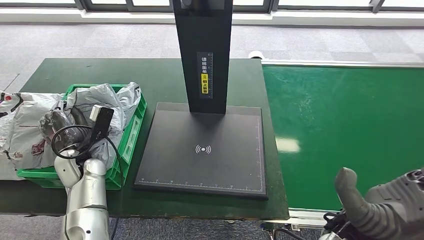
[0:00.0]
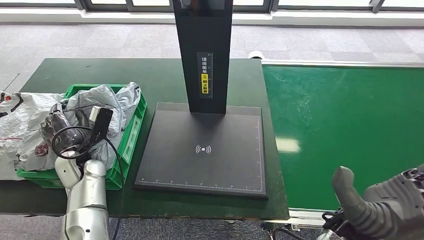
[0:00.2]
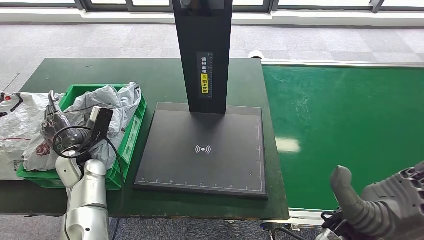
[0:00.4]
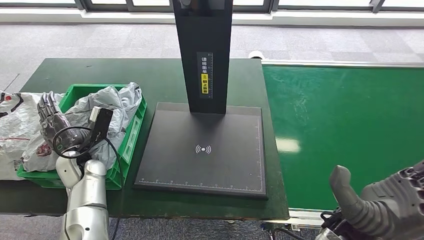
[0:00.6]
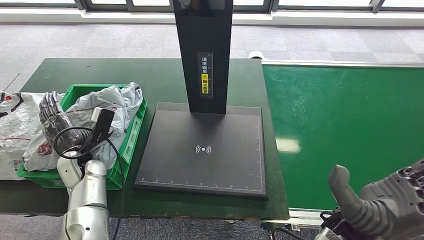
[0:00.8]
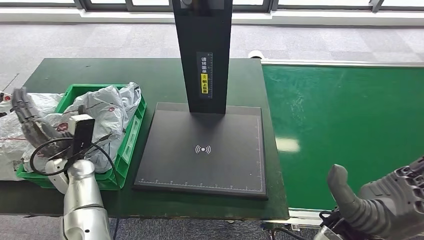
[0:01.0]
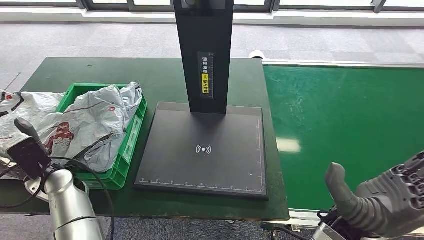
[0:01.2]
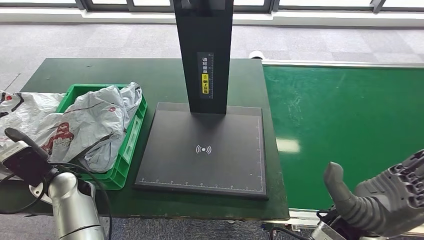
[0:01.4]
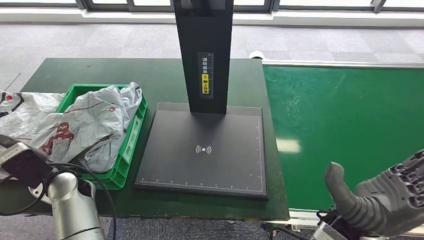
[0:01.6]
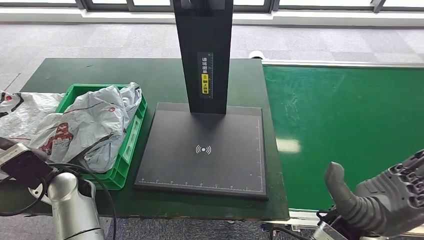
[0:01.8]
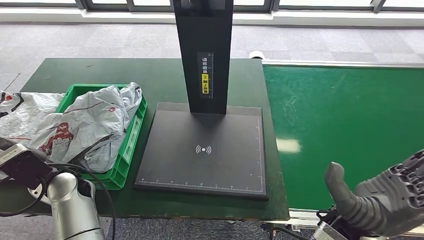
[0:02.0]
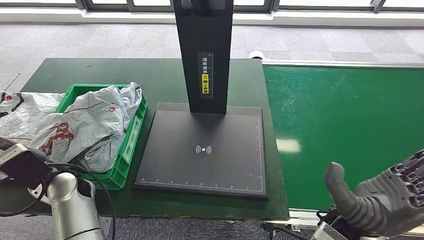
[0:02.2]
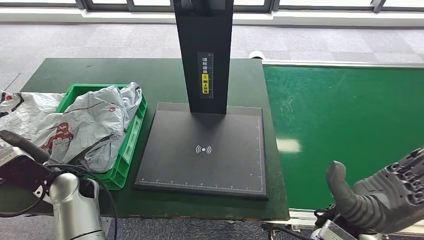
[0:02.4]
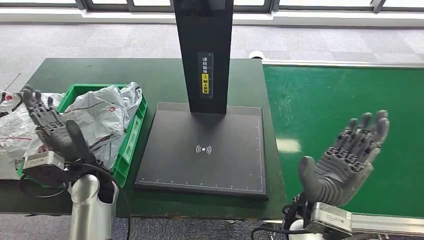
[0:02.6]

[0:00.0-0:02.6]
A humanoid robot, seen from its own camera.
Step, 0:00.0 to 0:02.6: Place the parcel into the delivery box.
0:00.0 to 0:01.2: The left hand moves some 5 cm.
0:01.2 to 0:02.6: The left hand moves to the right, about 10 cm, while the right hand shifts by approximately 5 cm.

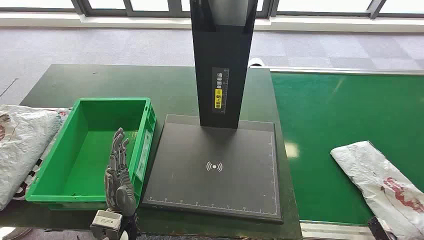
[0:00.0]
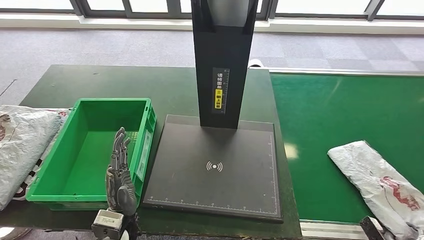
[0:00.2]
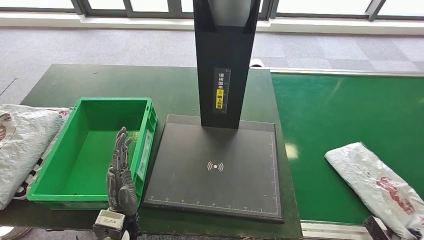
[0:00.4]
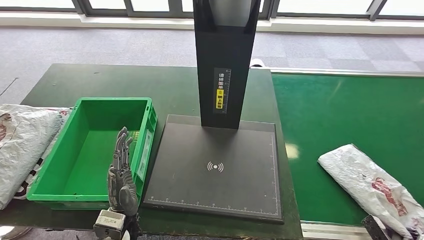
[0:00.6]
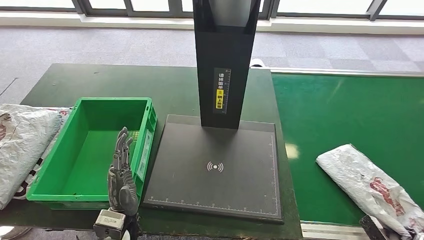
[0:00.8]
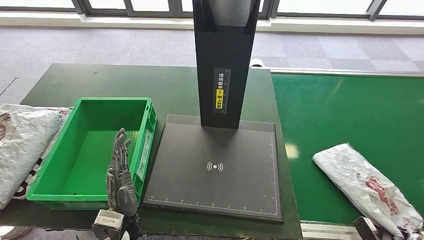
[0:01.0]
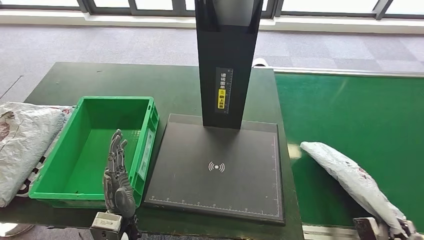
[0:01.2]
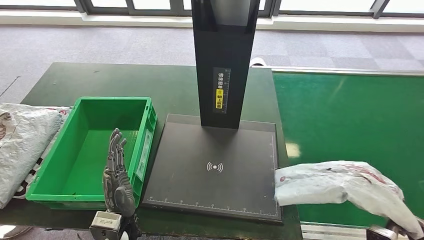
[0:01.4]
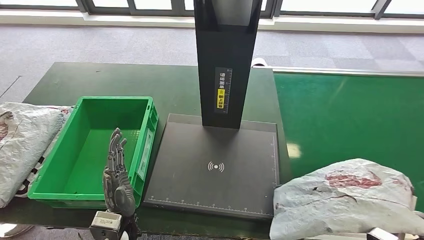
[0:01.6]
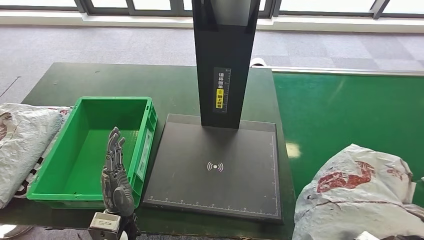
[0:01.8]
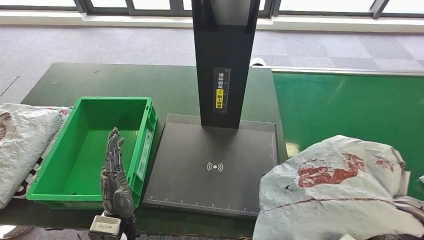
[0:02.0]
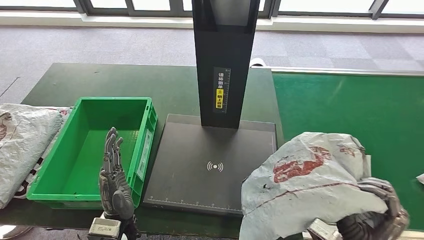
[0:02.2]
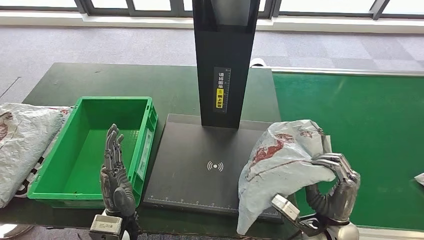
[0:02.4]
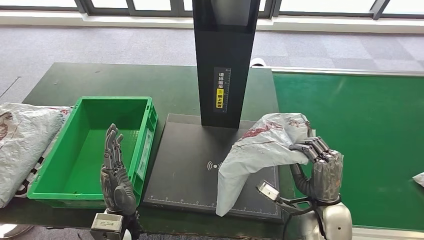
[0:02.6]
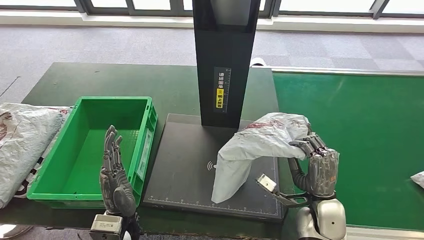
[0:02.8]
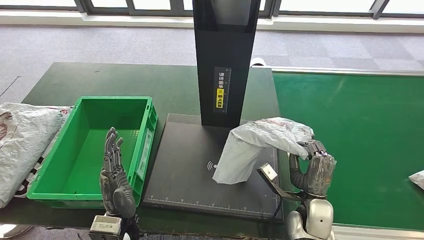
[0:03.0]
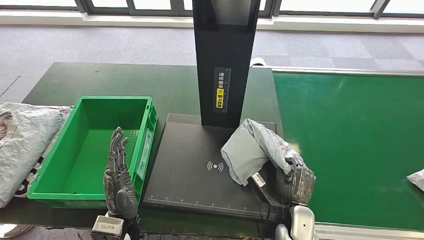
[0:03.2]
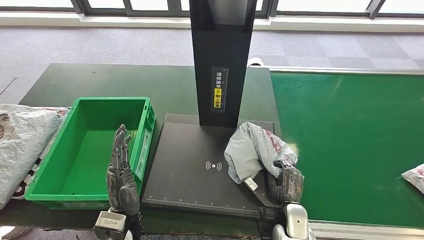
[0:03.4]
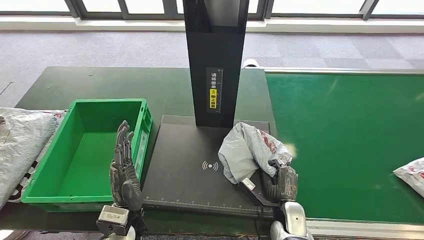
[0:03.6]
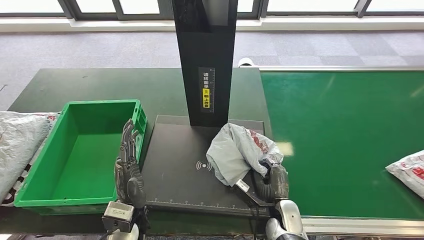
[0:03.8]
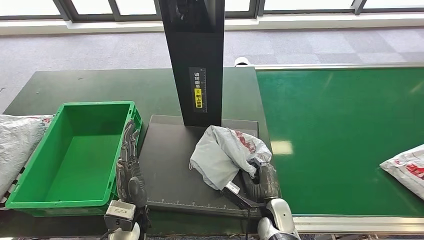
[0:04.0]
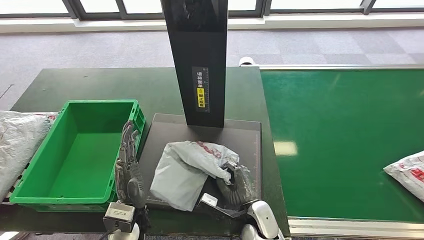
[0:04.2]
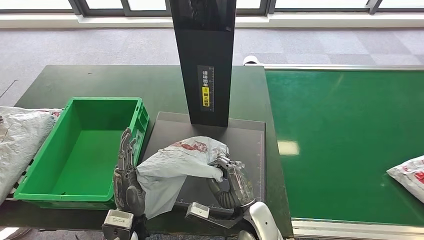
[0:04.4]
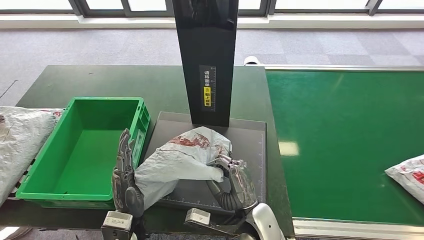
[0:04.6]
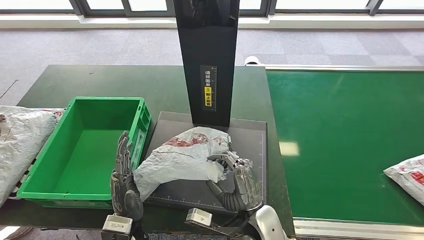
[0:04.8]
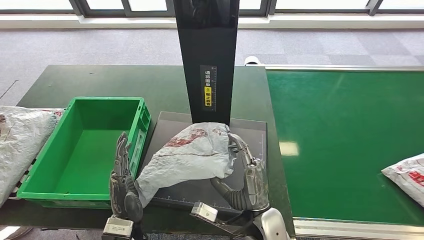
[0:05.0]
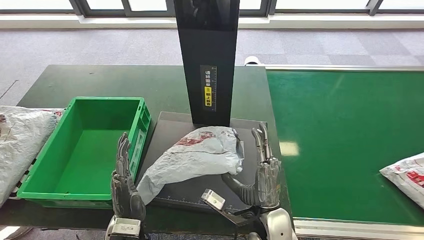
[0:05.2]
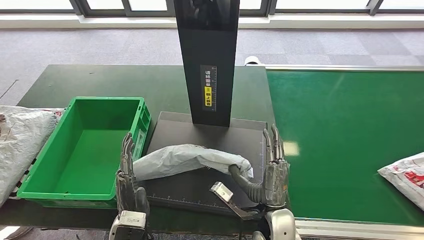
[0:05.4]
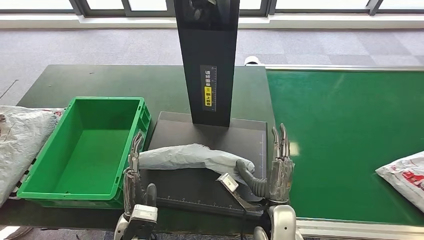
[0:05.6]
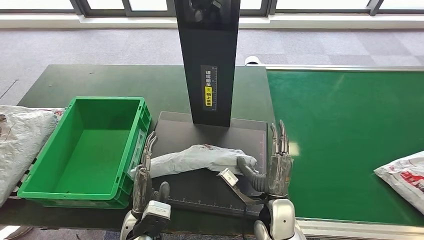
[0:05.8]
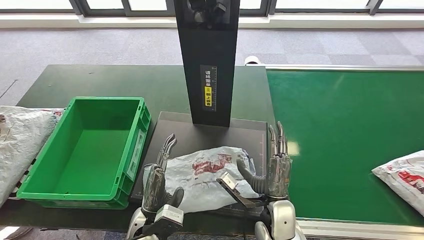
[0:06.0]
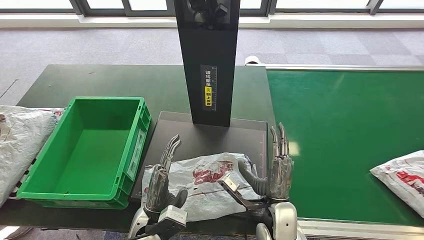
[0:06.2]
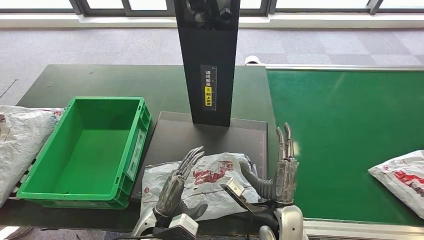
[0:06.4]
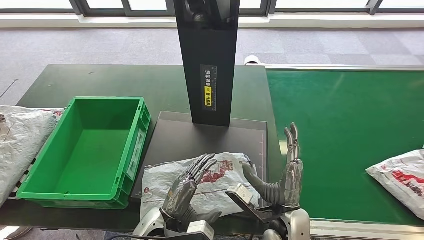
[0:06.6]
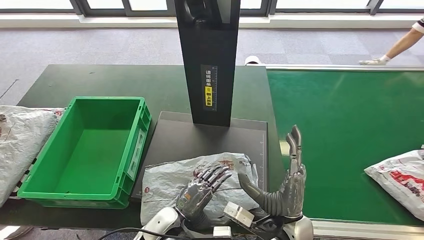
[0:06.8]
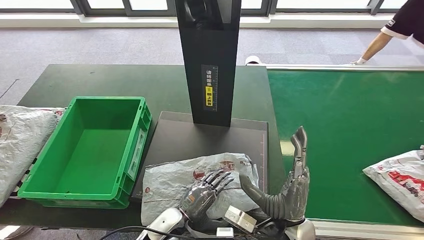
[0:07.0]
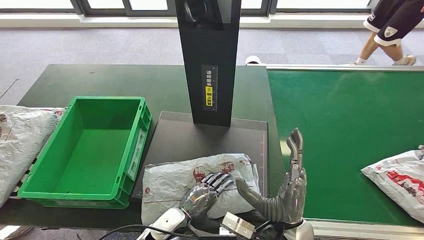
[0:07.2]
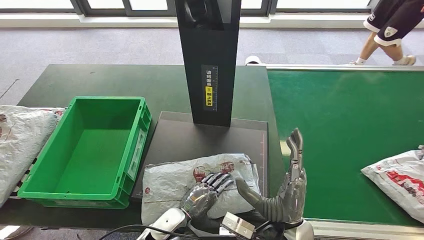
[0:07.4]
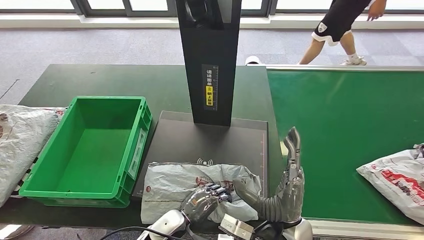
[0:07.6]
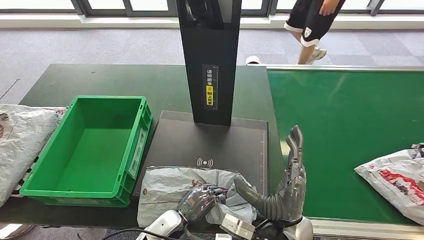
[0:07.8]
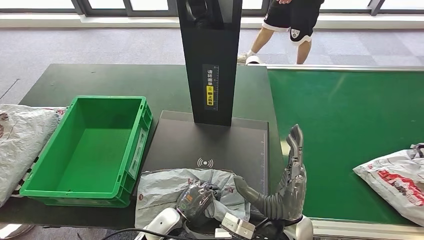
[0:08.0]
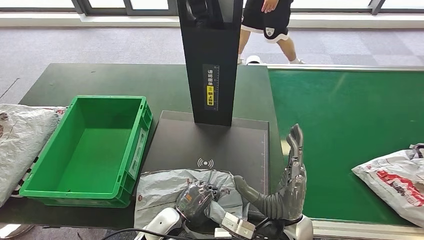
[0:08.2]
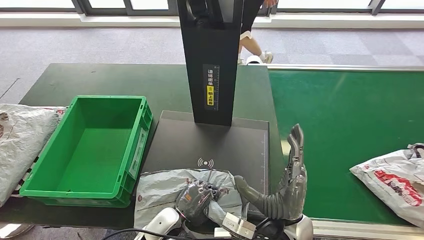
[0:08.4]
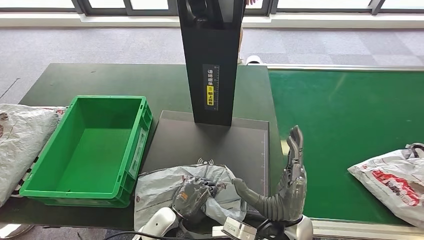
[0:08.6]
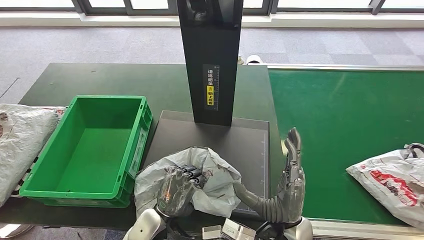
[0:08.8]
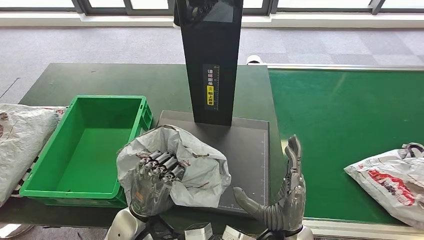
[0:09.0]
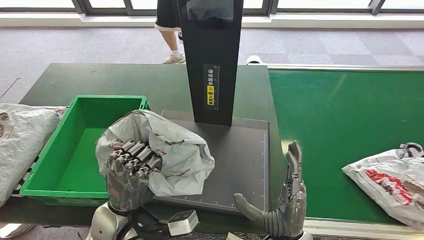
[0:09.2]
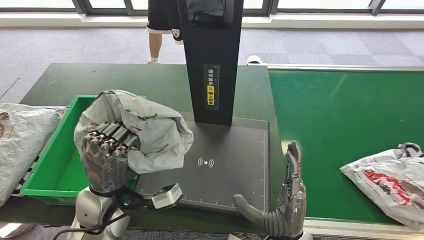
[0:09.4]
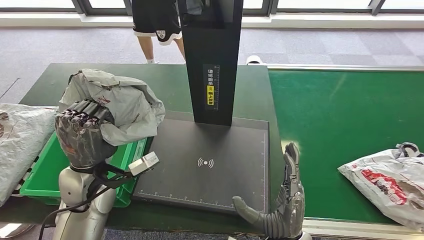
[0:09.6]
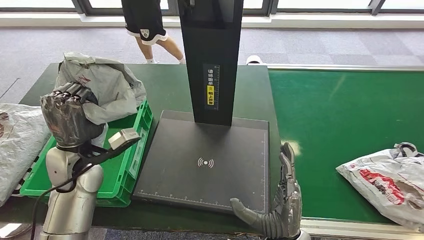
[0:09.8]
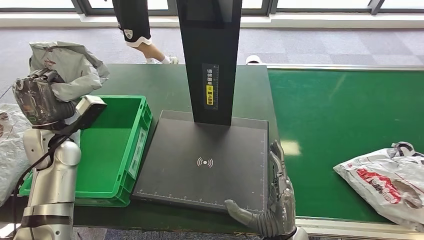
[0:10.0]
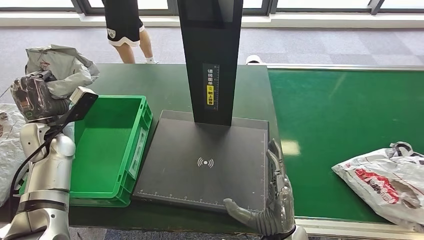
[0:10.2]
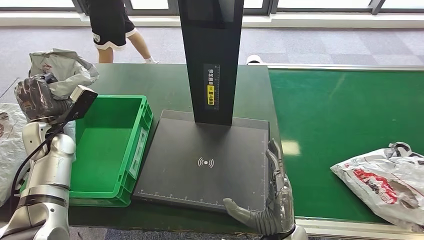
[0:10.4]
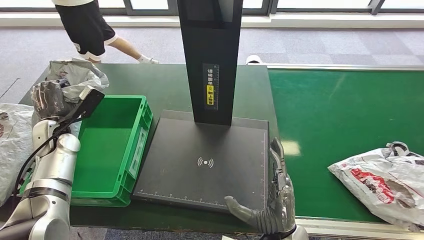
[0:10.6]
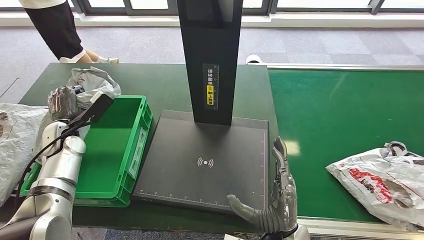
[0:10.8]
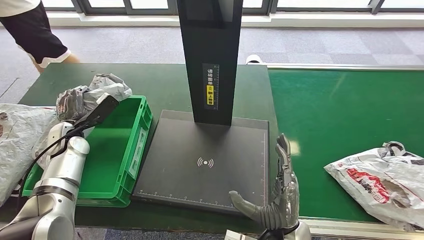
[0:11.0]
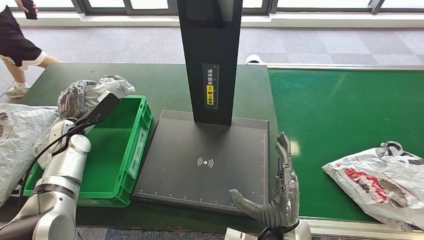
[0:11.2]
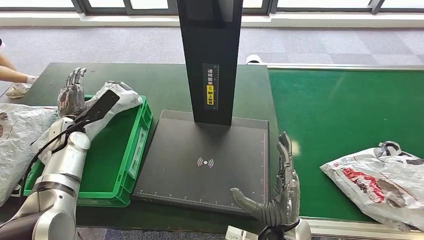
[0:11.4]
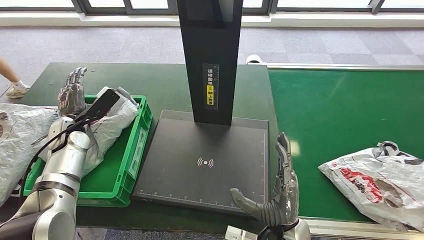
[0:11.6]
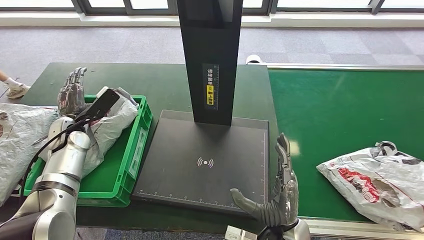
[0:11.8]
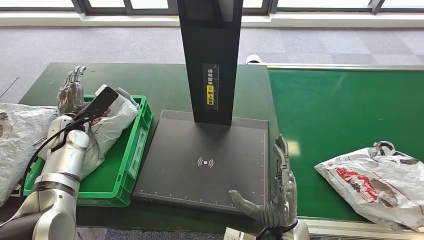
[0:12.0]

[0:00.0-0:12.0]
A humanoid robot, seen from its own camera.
Step, 0:00.0 to 0:01.0: Take the parcel off the conveyor belt.
Step, 0:01.2 to 0:03.4: Place the parcel onto the inbound machine.
Step, 0:08.8 to 0:10.0: Pick up the parcel from the inbound machine.
0:01.6 to 0:03.0: The right hand is displaced forward and to the left by about 20 cm.
0:04.4 to 0:06.0: The right hand shifts by some 5 cm.

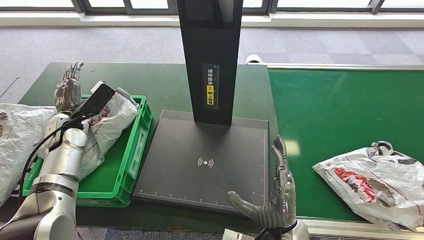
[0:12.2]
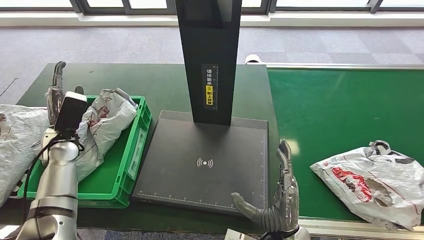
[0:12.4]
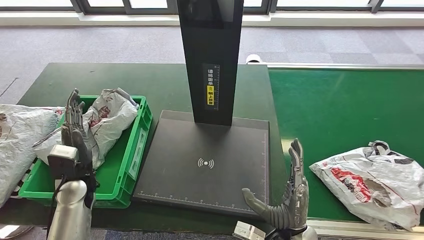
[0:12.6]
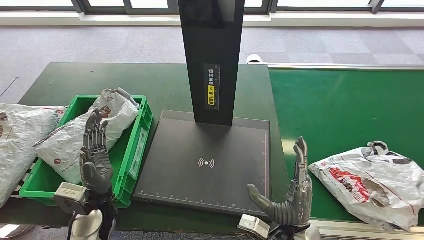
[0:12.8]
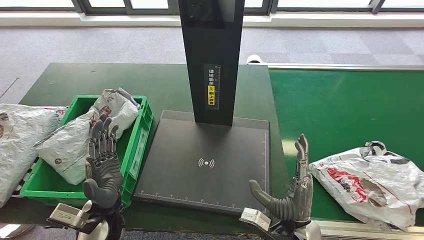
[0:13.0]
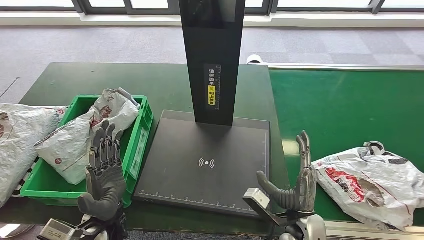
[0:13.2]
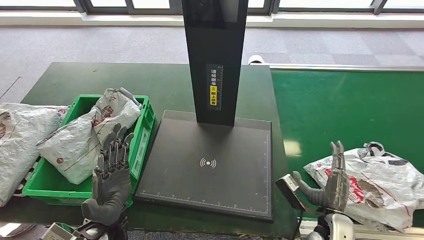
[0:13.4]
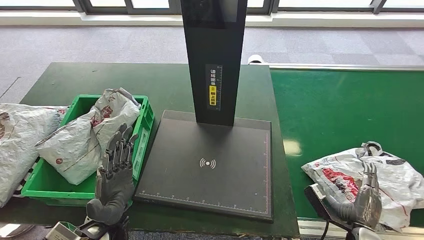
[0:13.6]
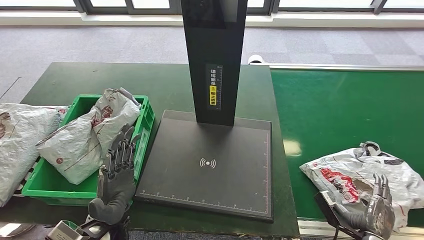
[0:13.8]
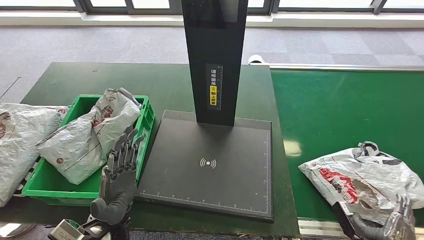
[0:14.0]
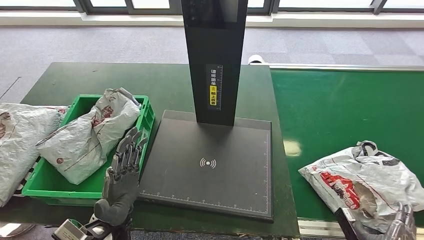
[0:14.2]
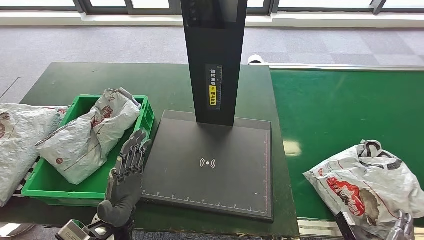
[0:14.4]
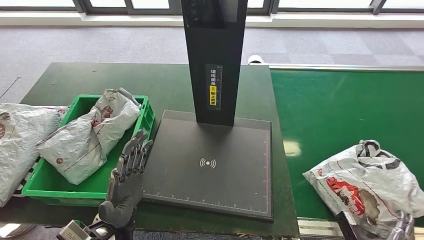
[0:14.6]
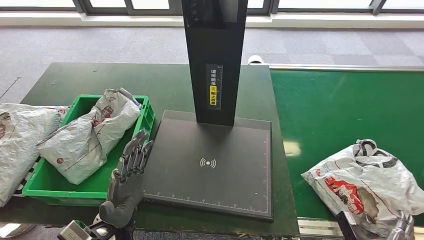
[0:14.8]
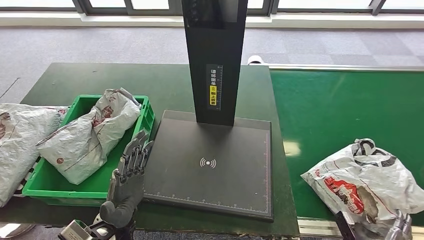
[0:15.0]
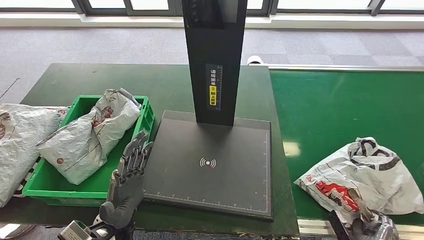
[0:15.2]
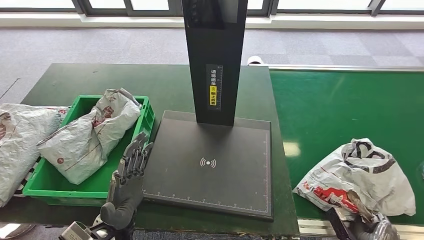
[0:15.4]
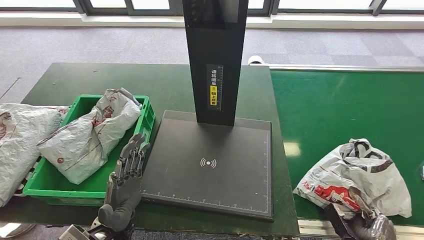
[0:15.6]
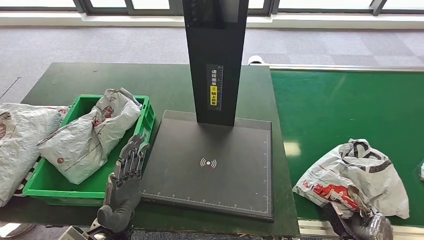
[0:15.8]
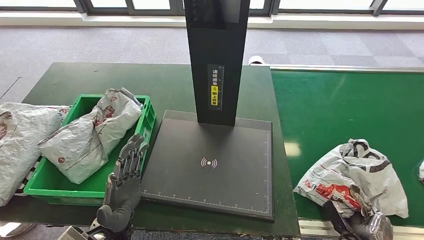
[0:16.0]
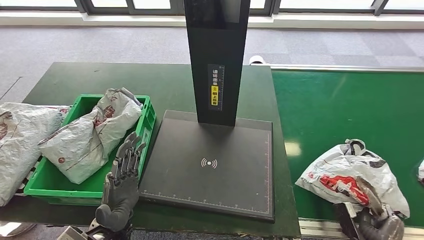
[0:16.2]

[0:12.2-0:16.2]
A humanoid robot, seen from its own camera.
0:13.6 to 0:14.8: The right hand moves downward, to the right and backward, roughly 10 cm.
